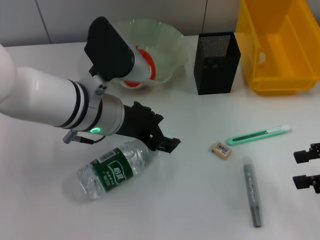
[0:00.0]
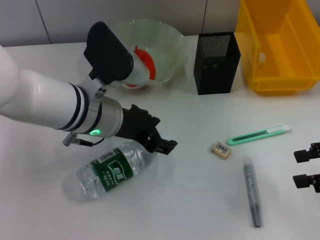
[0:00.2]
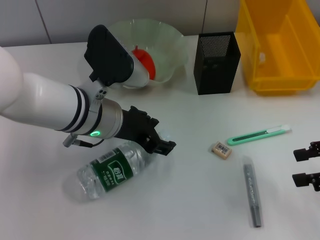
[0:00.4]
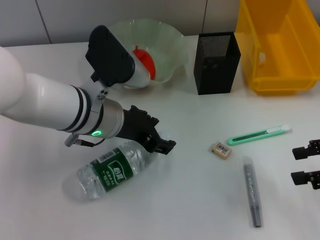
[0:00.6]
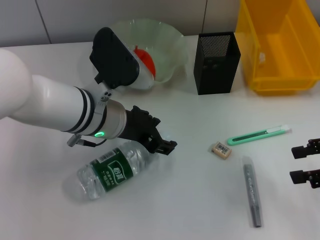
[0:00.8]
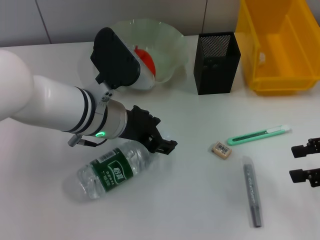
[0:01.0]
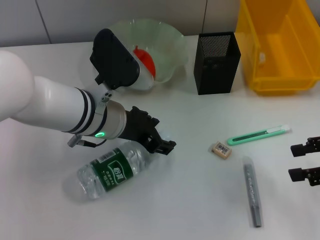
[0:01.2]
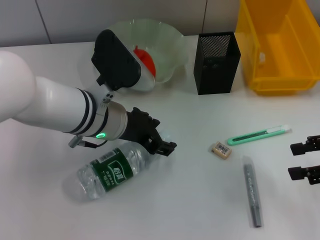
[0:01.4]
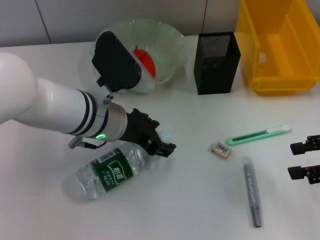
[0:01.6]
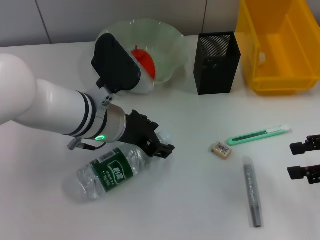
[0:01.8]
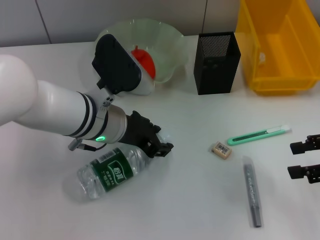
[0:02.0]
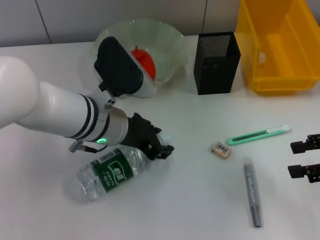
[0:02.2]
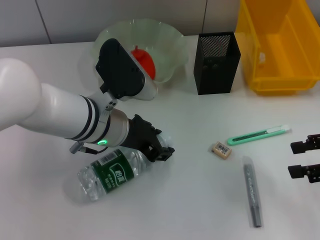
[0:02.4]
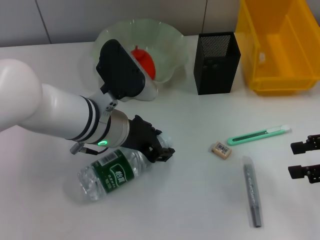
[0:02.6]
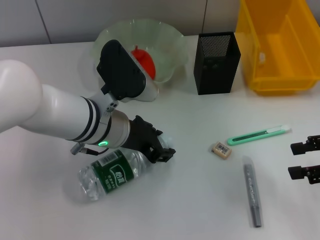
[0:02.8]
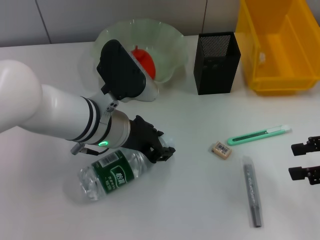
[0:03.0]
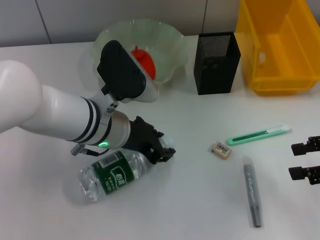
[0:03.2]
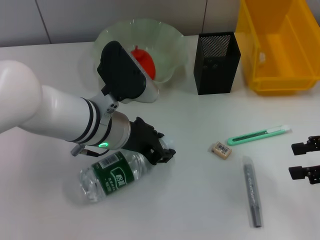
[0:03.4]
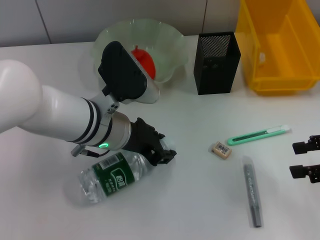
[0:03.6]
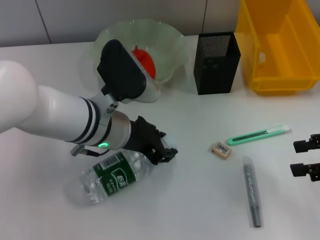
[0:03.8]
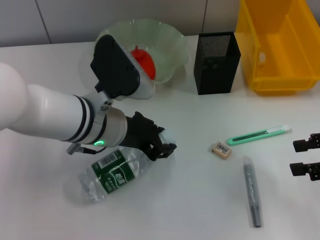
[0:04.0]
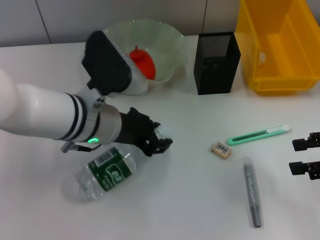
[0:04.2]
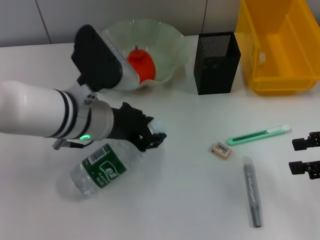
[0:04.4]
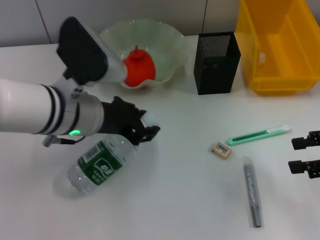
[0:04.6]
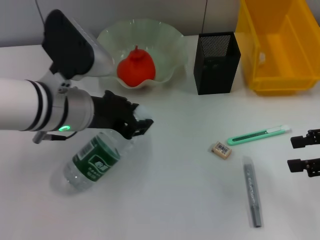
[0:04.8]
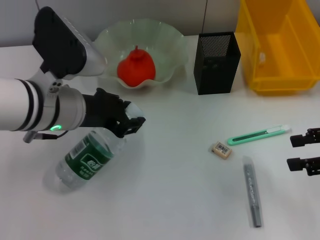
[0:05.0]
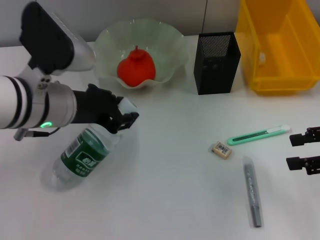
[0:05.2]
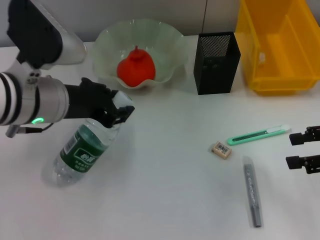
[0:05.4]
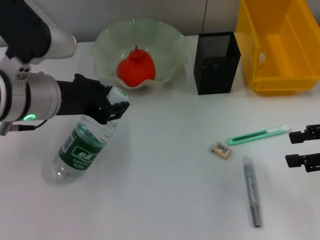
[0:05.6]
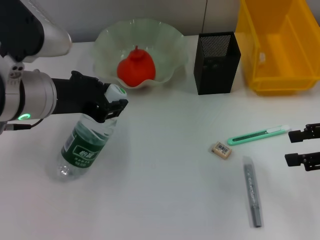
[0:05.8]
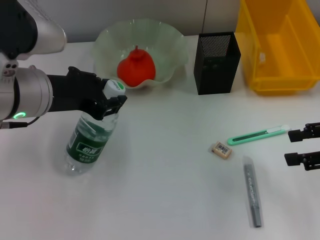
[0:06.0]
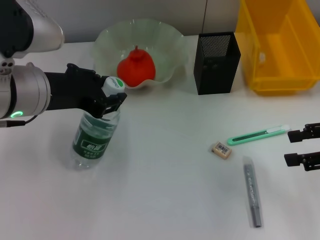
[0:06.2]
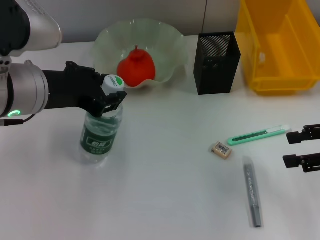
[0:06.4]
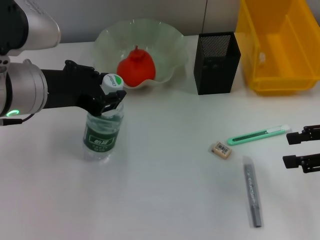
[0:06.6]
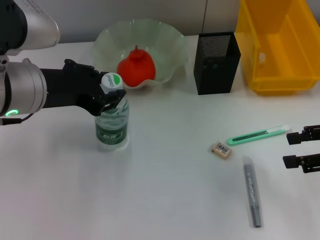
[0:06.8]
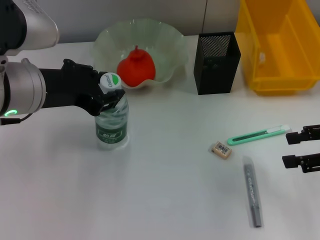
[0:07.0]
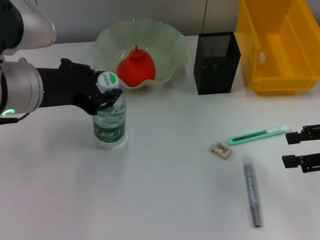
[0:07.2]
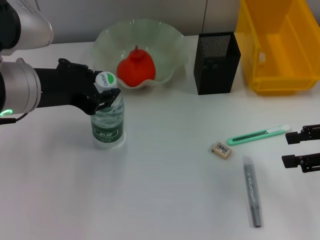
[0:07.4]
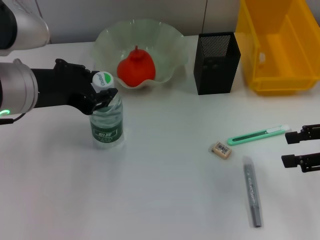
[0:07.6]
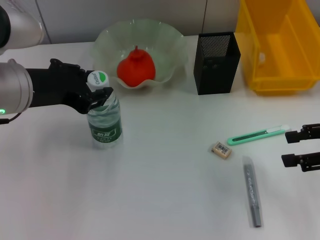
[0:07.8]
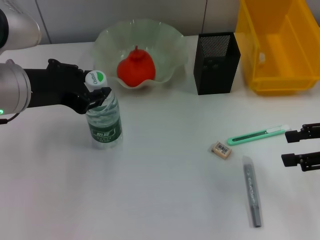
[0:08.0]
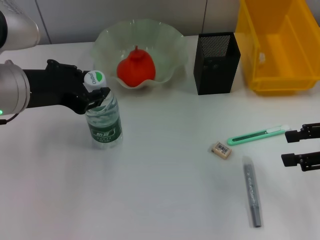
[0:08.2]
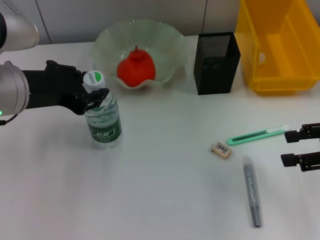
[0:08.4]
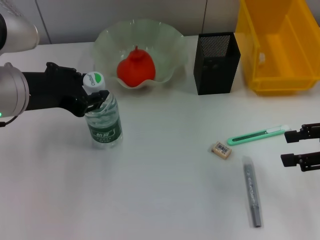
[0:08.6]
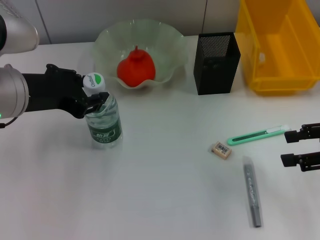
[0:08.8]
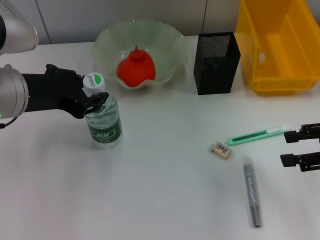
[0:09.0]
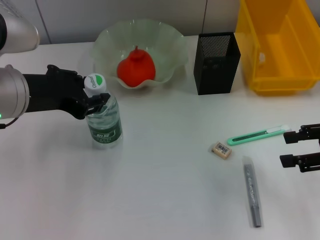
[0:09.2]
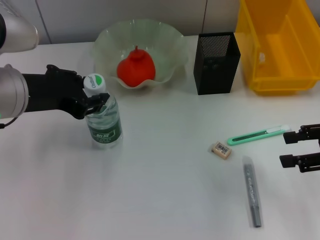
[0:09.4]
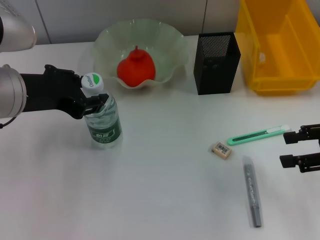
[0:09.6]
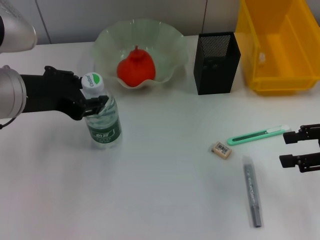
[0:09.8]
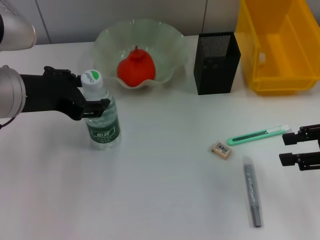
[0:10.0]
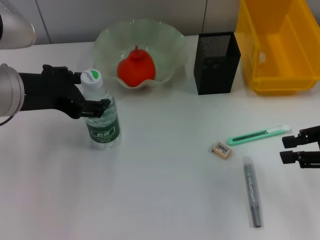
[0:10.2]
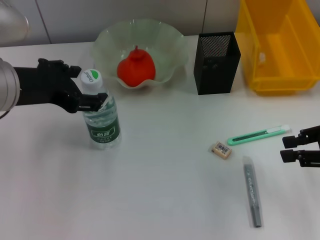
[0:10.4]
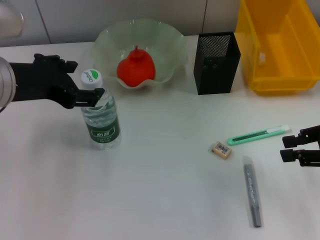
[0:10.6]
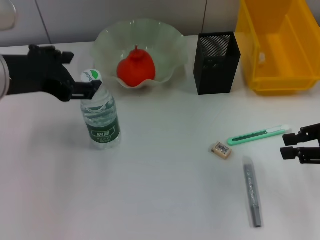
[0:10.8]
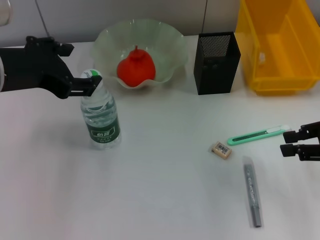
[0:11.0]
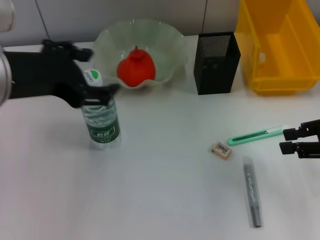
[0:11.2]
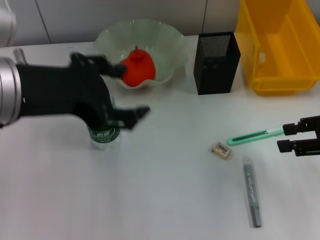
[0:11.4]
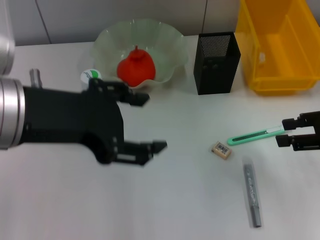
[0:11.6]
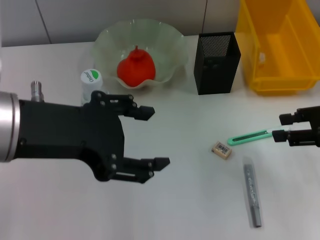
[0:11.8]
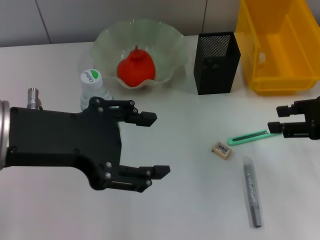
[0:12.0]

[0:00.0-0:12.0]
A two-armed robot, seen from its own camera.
Step, 0:00.0 to 0:03.6: Grab the water bottle with the left hand.
Step, 0:03.8 to 0:10.0: Place the water bottle on the table with the left hand.
0:00.0 to 0:01.6: There are only small adjustments of the grippers.
0:01.6 to 0:03.0: The left gripper closes.
0:03.0 to 0:04.4: There are only small adjustments of the grippers.
0:04.4 to 0:06.0: The left gripper shifts approximately 10 cm to the left and upward.
0:06.0 to 0:07.6: There are only small adjustments of the grippers.
0:07.6 to 0:09.0: Both grippers stay put.
0:09.0 to 0:10.4: The left gripper opens its fingers.
0:10.4 to 0:12.0: The left gripper travels backward by approximately 5 cm.

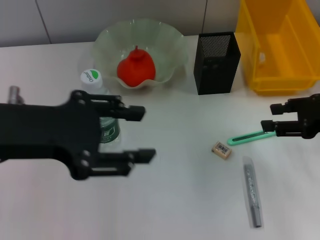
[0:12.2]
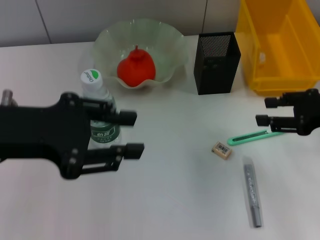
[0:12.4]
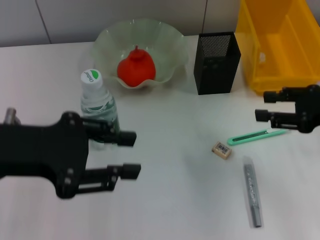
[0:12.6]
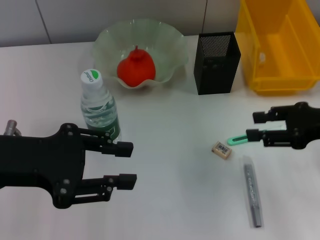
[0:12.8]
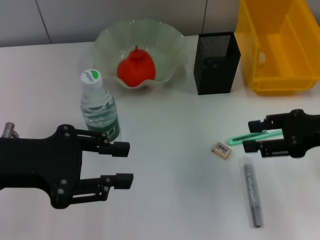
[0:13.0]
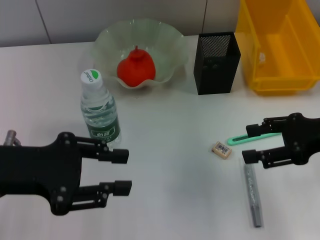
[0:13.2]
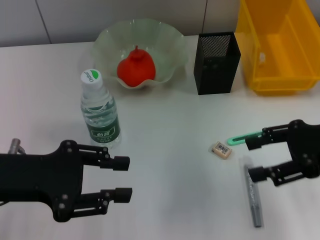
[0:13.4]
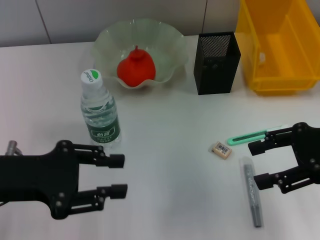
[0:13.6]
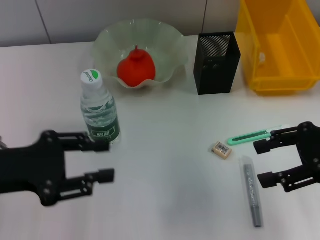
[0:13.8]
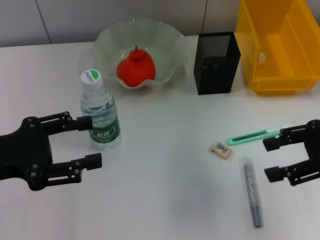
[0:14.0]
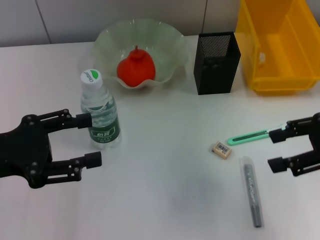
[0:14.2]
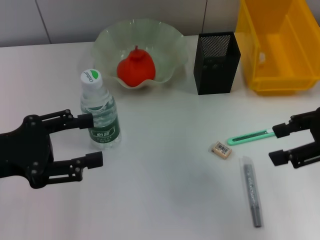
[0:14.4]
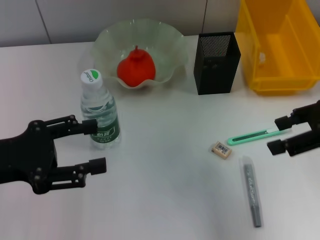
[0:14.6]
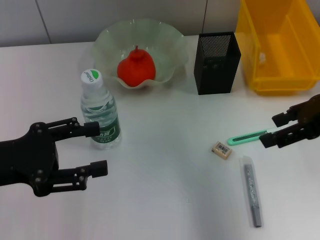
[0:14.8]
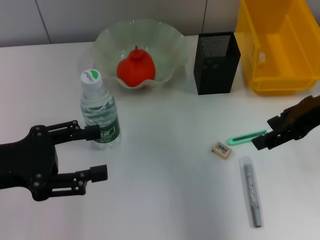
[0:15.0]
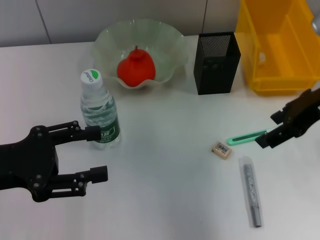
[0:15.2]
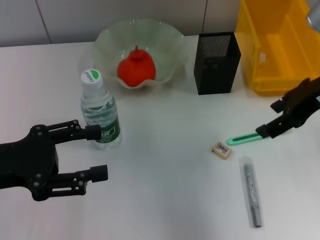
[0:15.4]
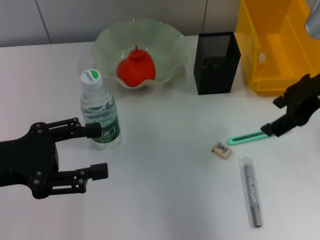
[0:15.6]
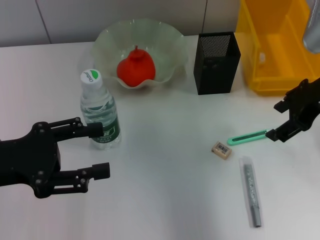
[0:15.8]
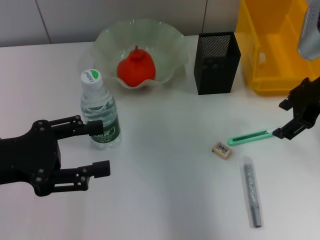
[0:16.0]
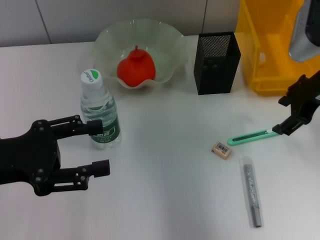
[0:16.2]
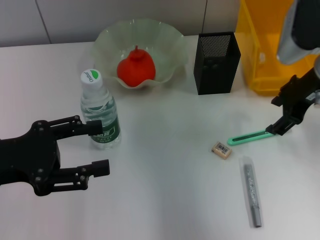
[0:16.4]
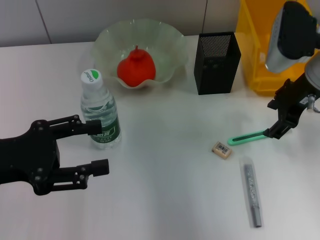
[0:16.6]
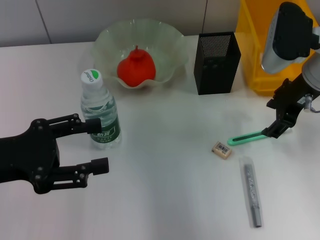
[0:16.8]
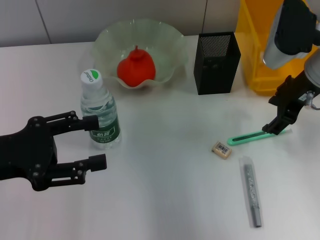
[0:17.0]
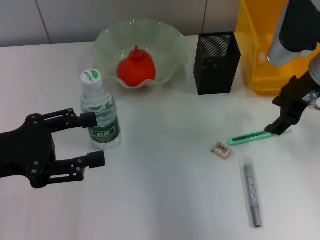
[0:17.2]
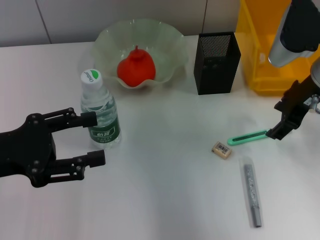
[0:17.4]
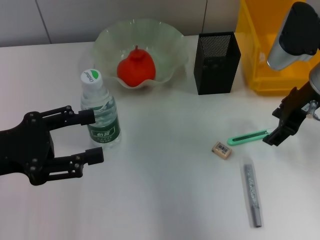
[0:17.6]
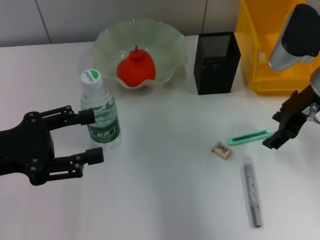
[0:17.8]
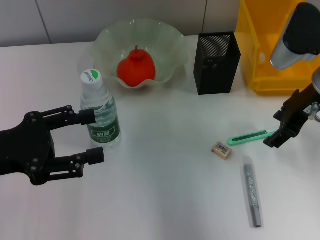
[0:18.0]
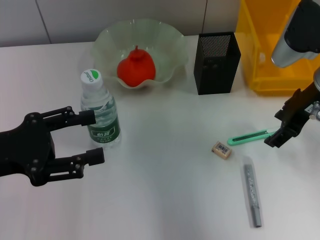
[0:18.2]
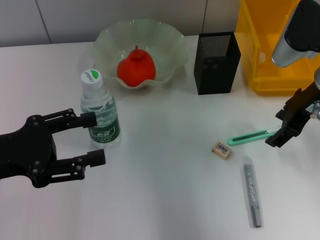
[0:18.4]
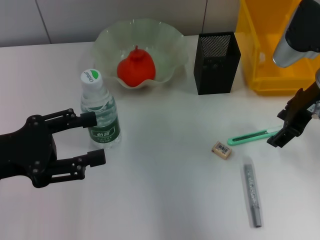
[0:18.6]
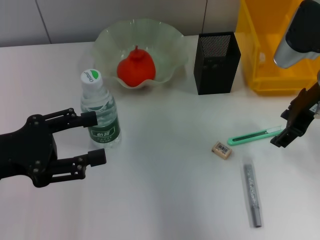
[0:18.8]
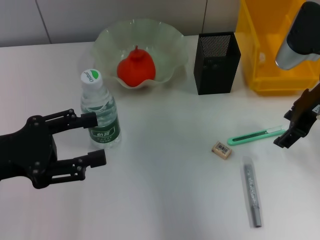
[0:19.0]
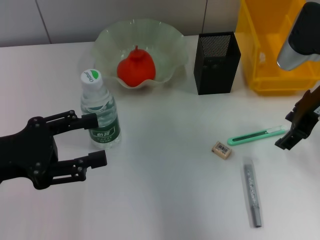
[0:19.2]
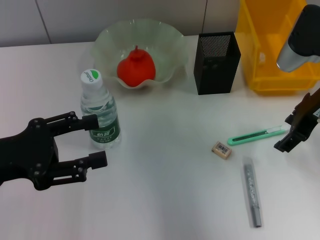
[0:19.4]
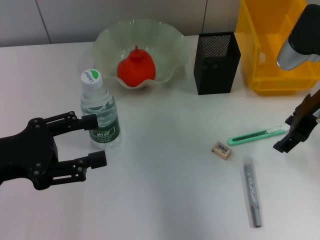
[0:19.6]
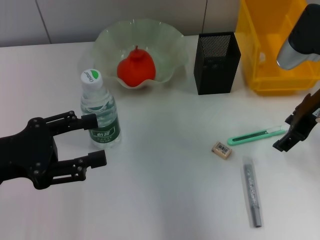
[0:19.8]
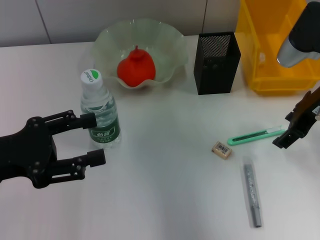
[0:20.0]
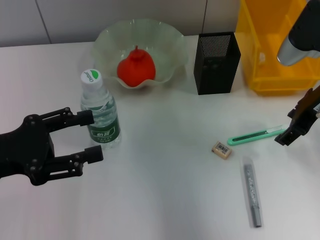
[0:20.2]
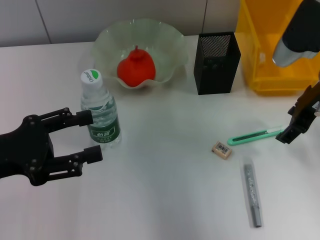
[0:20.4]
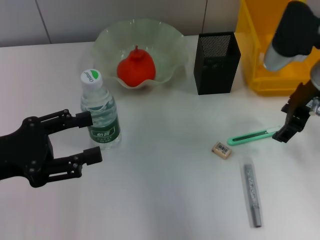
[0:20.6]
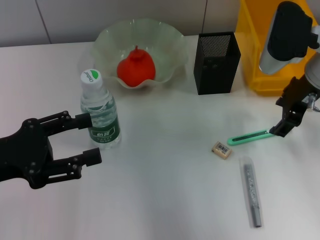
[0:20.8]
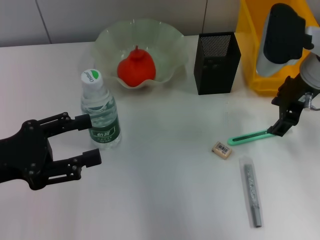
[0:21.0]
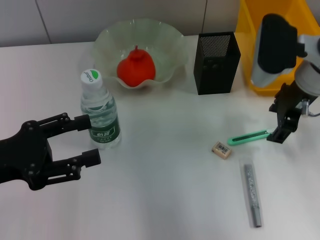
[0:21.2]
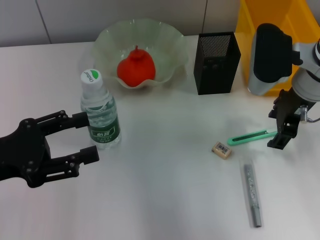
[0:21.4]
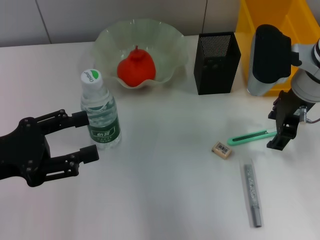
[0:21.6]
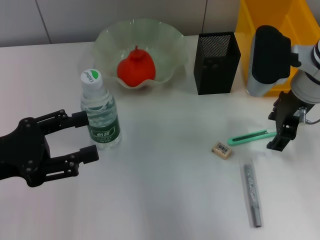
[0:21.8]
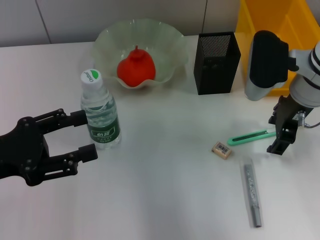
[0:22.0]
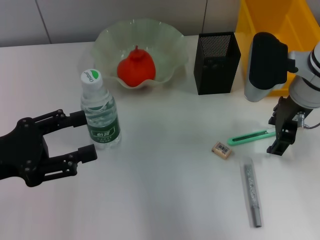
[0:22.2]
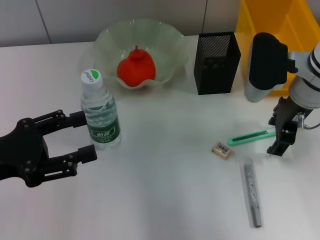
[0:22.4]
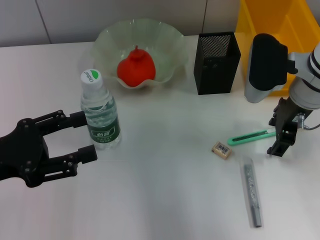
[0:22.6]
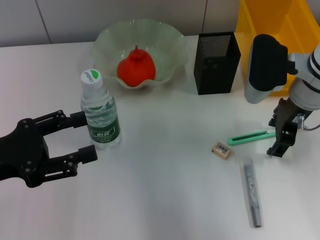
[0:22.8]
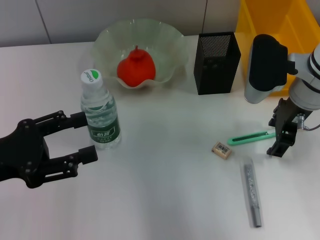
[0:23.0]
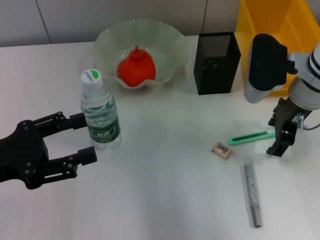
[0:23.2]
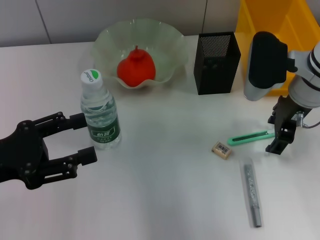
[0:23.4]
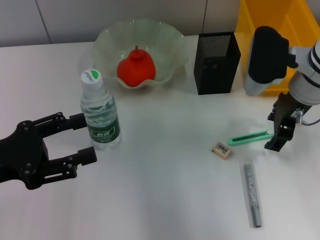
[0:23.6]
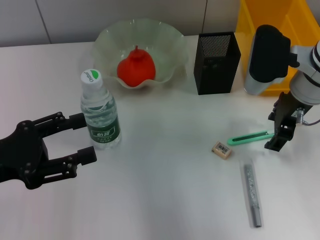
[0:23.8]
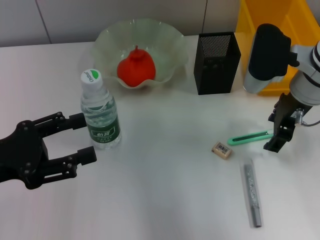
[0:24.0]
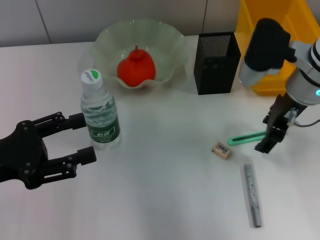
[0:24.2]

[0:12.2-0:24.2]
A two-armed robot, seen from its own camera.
0:12.2 to 0:13.8: The left gripper travels downward and to the left by approximately 10 cm; the right gripper changes place by about 5 cm.
0:13.8 to 0:15.2: The right gripper is displaced to the left and forward by some 5 cm, while the left gripper opens.
0:15.2 to 0:16.6: The right gripper goes about 10 cm forward and downward.
0:16.6 to 0:18.2: The grippers make only small movements.
0:18.2 to 0:19.8: The two grippers keep their place.
0:21.2 to 0:24.2: There are only small adjustments of the grippers.
